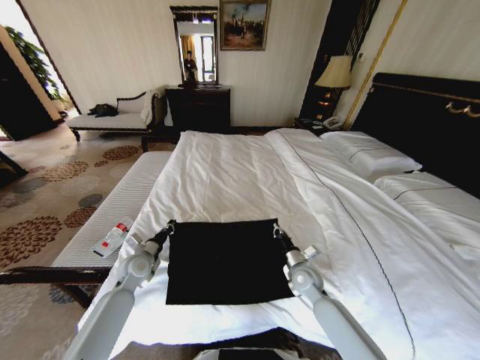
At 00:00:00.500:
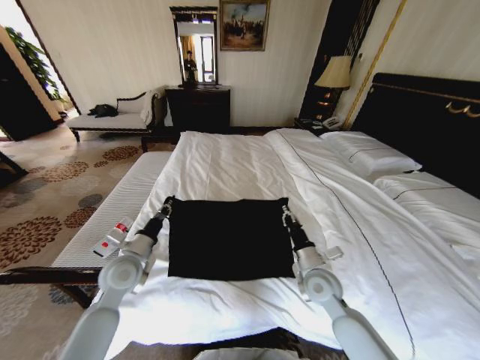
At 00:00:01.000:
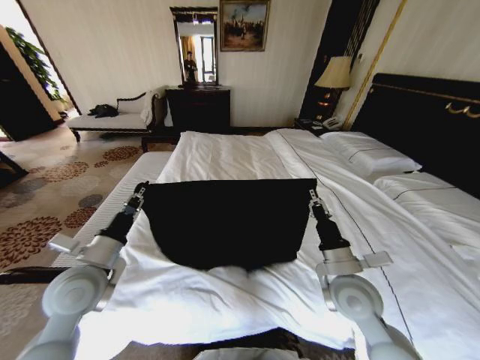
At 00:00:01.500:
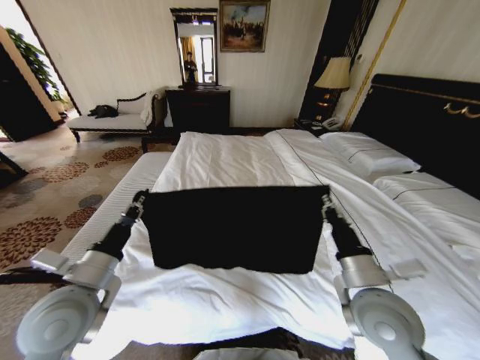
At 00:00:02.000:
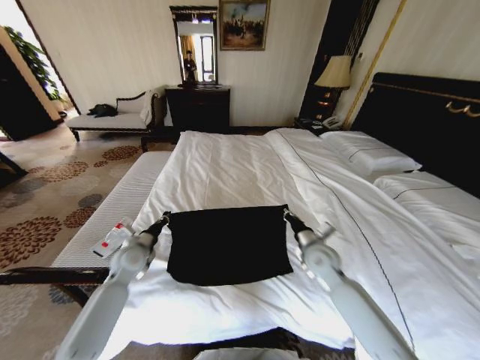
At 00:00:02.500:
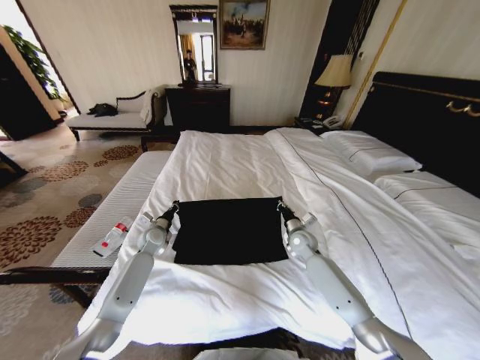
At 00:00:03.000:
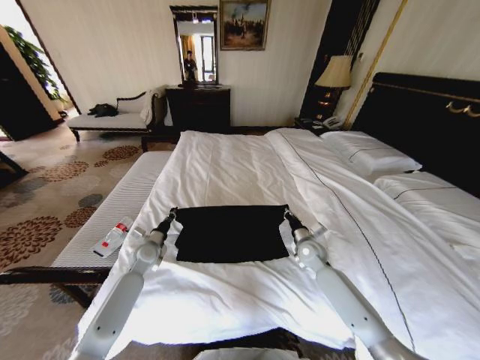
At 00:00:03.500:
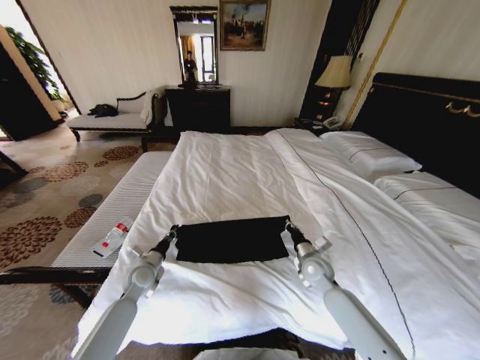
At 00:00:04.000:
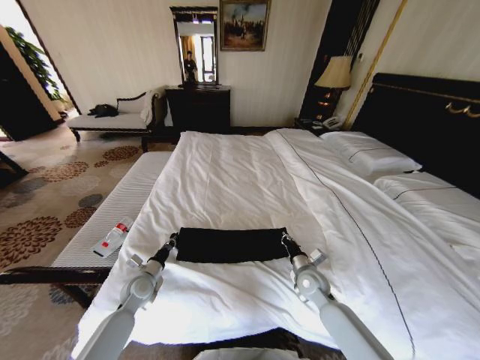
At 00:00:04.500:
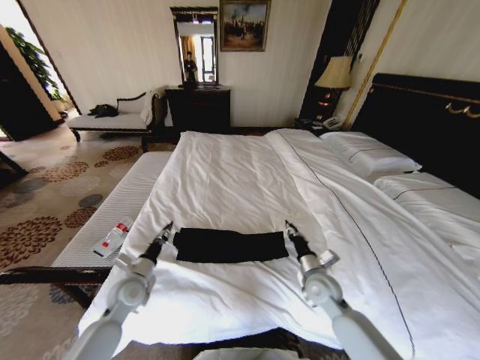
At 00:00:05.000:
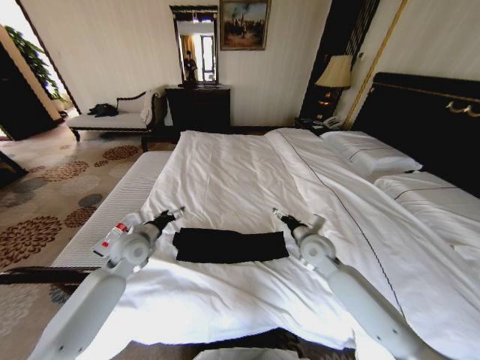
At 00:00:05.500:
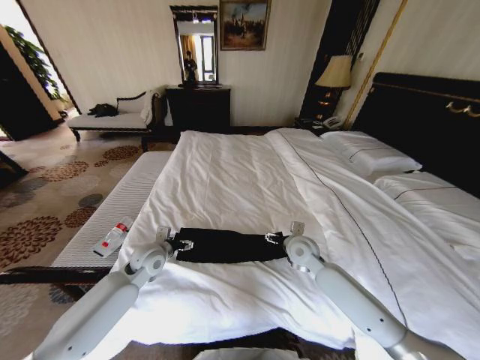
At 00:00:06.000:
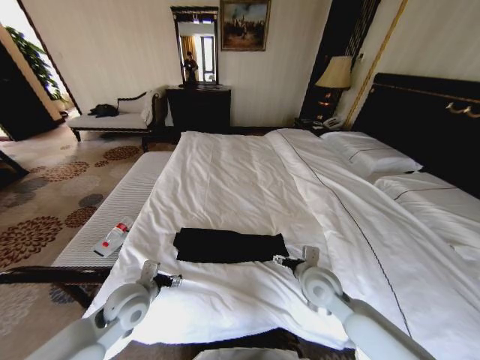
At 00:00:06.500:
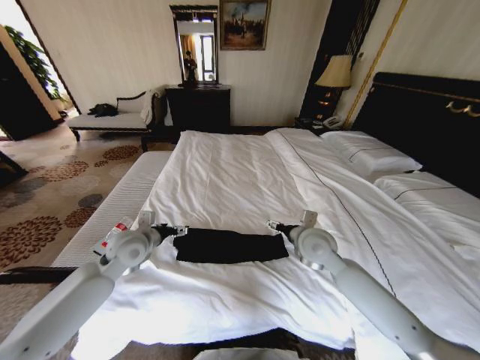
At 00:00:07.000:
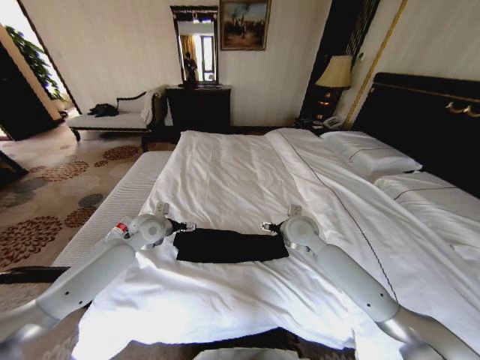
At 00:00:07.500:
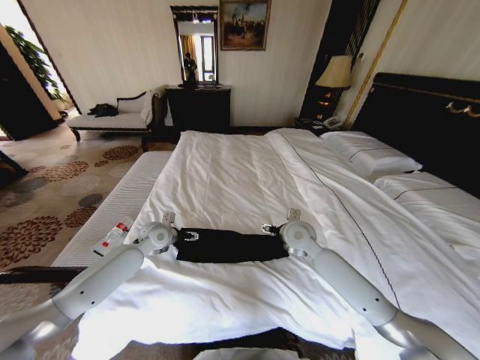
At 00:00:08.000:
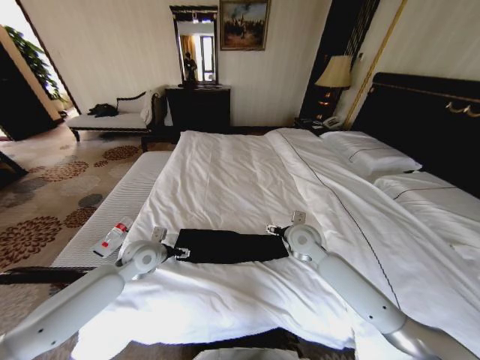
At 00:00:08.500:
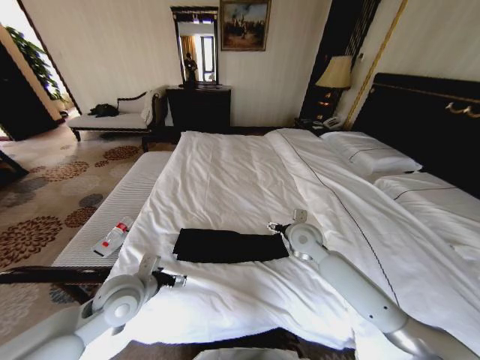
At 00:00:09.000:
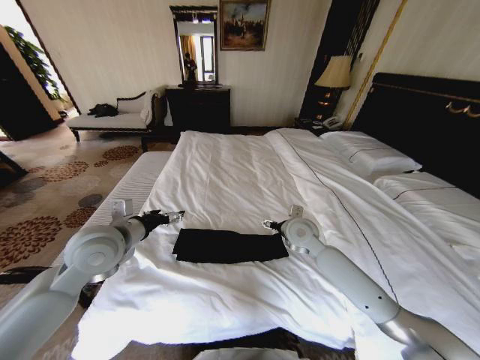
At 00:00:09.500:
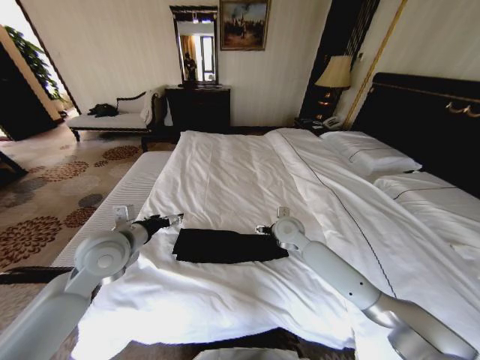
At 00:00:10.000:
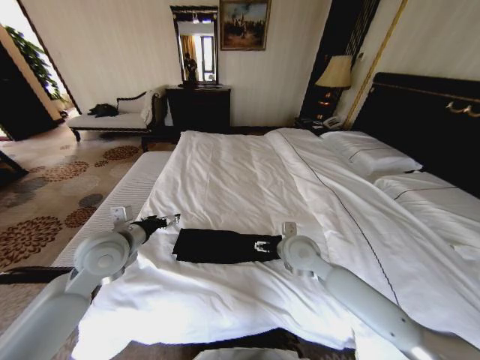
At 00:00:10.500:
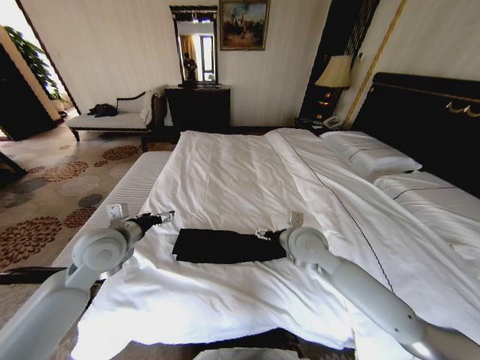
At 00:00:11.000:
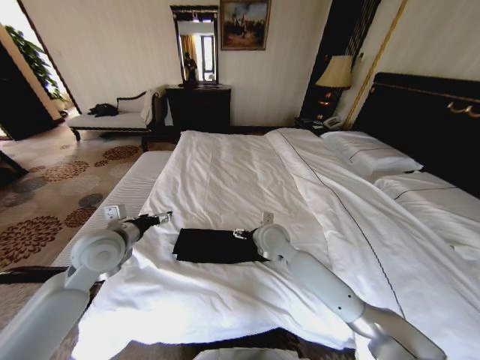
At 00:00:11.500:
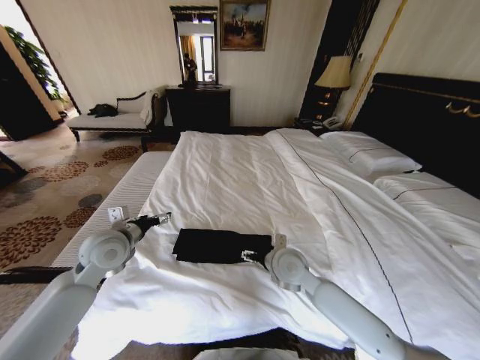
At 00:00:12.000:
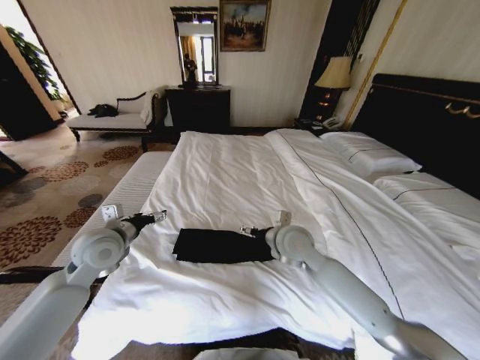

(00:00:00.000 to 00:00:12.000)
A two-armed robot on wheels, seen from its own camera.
Task of the whole recording: Fold the clothes on the bed.
00:00:00.000 - 00:00:02.000: The left gripper moves some 20 cm upward and comes back, while the right gripper travels upward by approximately 10 cm.
00:00:02.000 - 00:00:04.000: Both grippers move downward, approximately 10 cm. The right gripper moves roughly 10 cm forward and comes back. Meanwhile the left gripper goes forward and returns, some 10 cm each way.
00:00:04.000 - 00:00:06.000: The left gripper is displaced upward and backward by some 15 cm, and opens up. The right gripper goes some 10 cm upward, and opens up.
00:00:06.000 - 00:00:08.000: The two grippers go some 15 cm forward.
00:00:08.000 - 00:00:10.000: The left gripper heads upward and backward, covering roughly 15 cm; the right gripper shifts by some 5 cm.
00:00:10.000 - 00:00:12.000: The right gripper moves some 5 cm forward and comes back.

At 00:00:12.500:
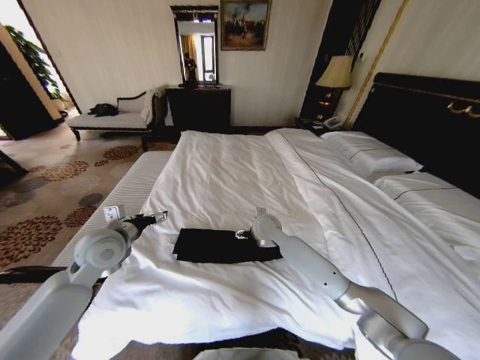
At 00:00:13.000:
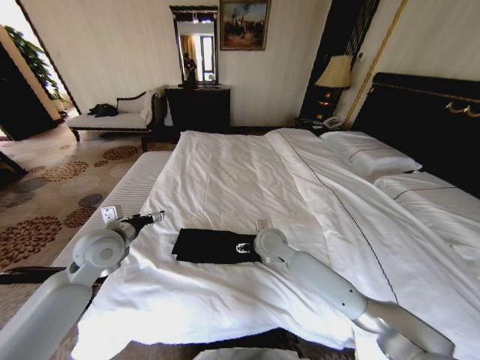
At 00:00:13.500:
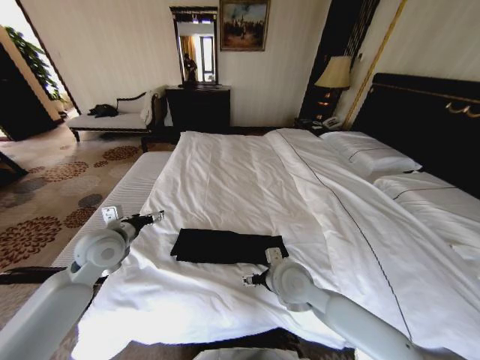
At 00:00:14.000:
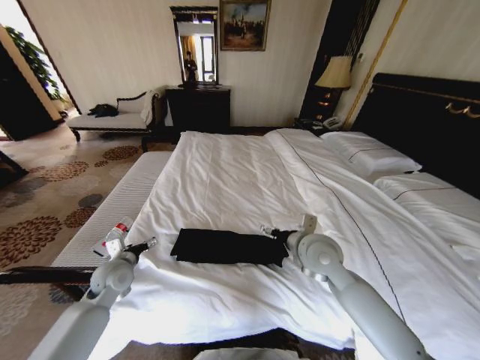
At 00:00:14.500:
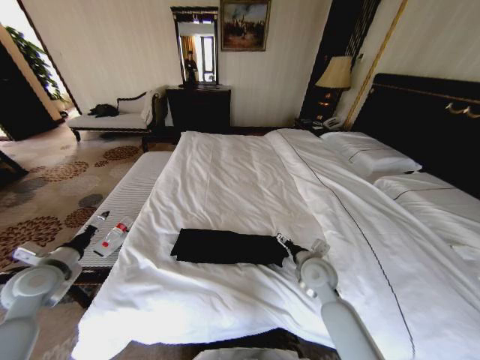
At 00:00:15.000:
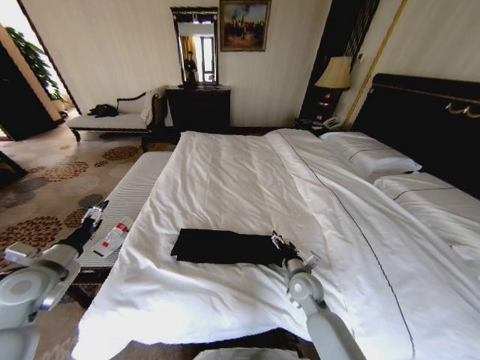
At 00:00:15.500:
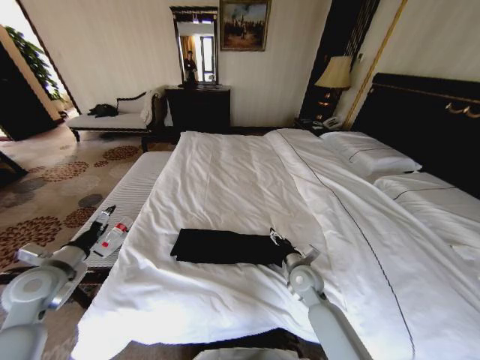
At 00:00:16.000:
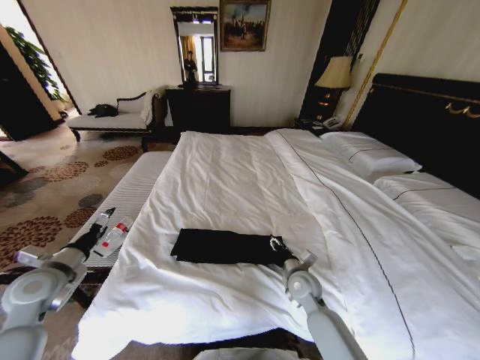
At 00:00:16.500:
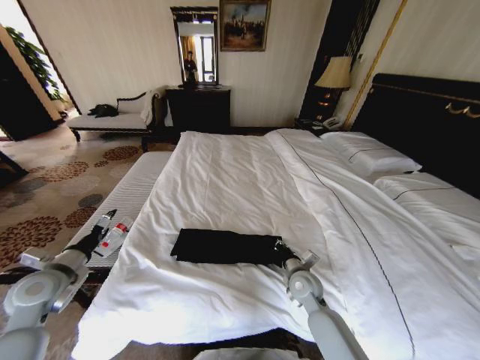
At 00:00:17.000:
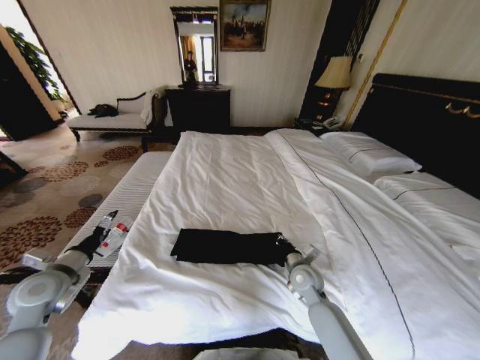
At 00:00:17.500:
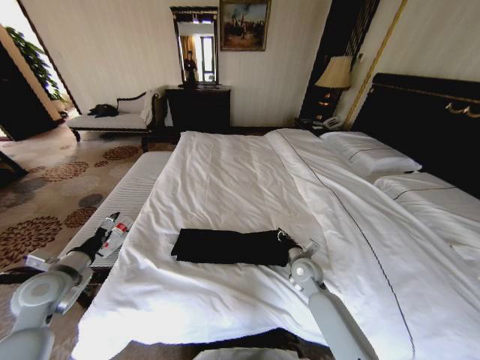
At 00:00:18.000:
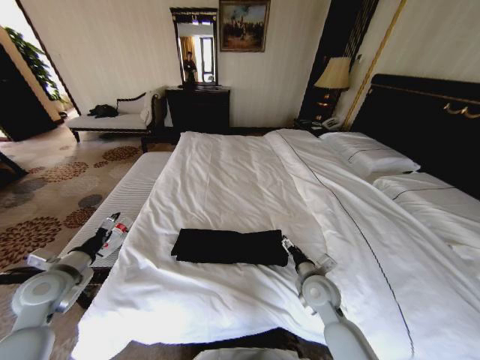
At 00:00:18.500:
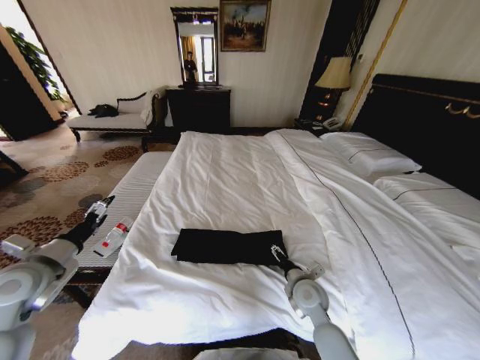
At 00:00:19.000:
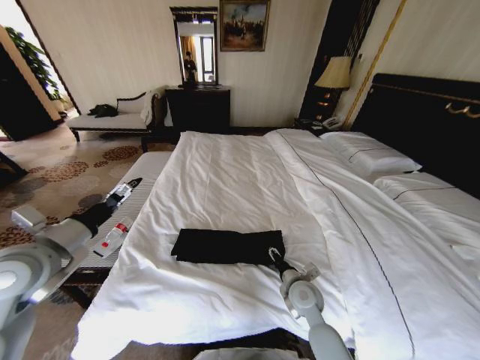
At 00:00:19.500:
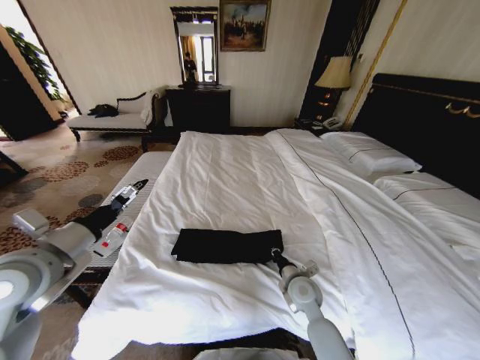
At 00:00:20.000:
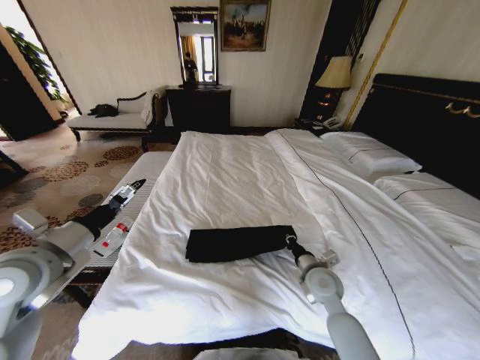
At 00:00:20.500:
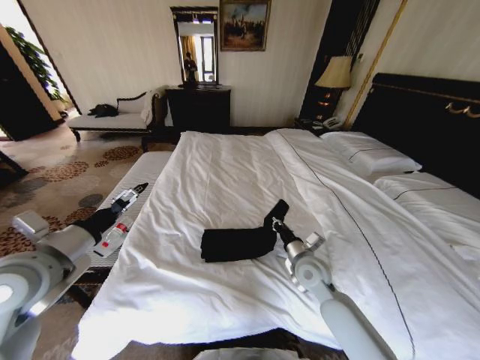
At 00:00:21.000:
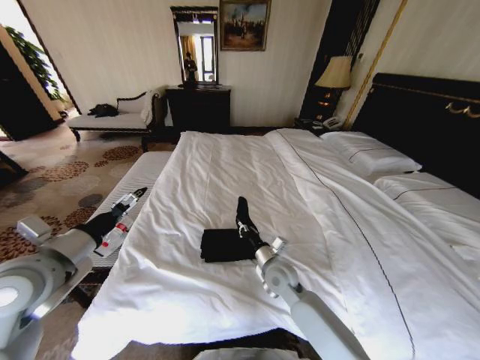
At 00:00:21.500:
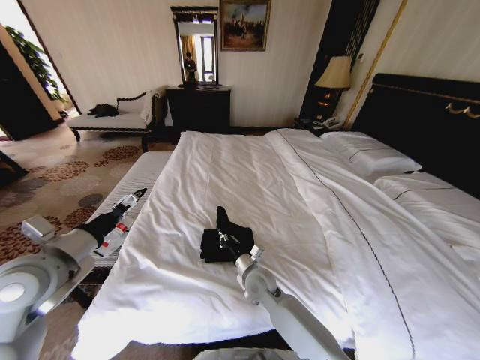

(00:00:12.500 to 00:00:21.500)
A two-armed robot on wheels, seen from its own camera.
Task of the whole recording: Fold the clothes on the bed.
00:00:12.500 - 00:00:14.500: The left gripper goes some 15 cm to the left and downward, while the right gripper moves backward and to the right, approximately 20 cm.
00:00:14.500 - 00:00:17.000: The right gripper shifts by some 5 cm, and closes its fingers.
00:00:17.000 - 00:00:19.500: The right gripper opens, then closes once more. Meanwhile the left gripper goes approximately 15 cm upward and to the right.
00:00:19.500 - 00:00:21.500: The right gripper moves to the left, some 15 cm.

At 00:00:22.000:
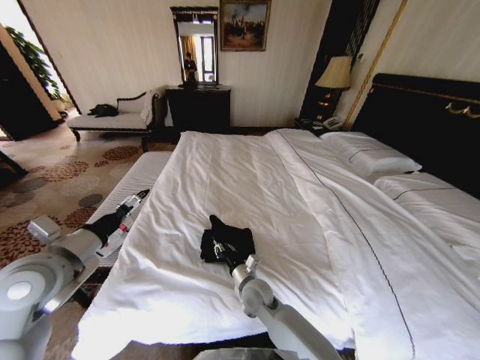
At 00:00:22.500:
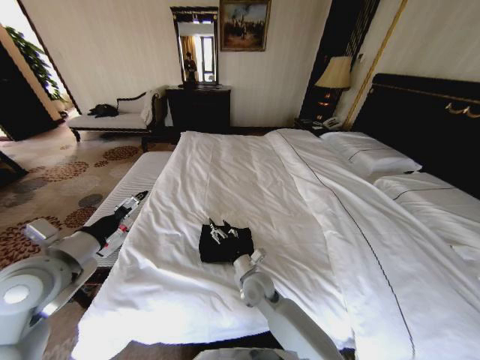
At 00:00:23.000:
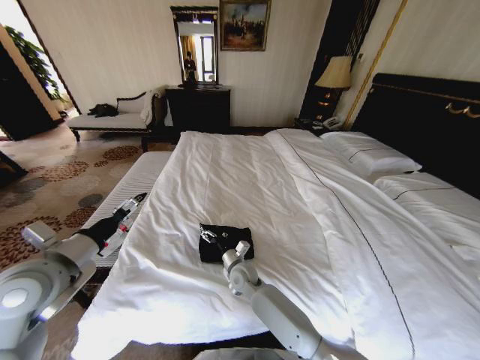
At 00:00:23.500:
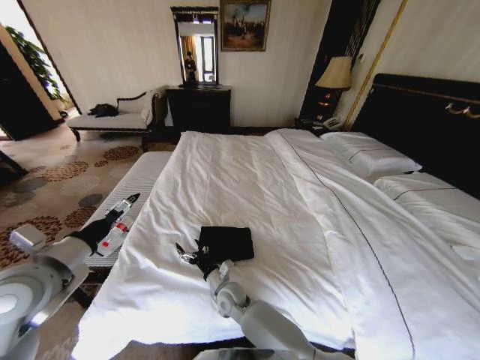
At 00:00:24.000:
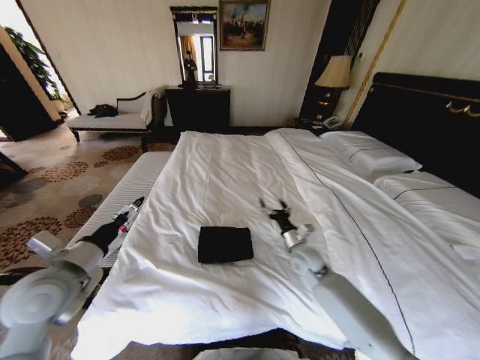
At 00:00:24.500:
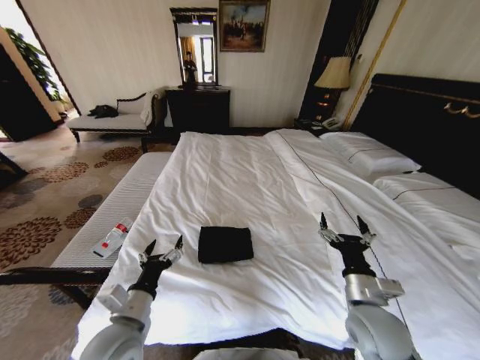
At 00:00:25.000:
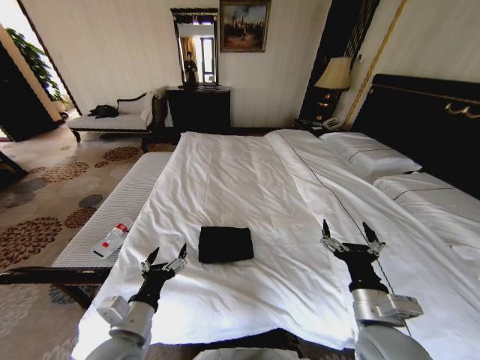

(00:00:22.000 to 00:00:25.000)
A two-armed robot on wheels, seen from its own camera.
Task of the whole recording: Fold the clothes on the bed.
00:00:22.000 - 00:00:23.500: The right gripper heads to the left, covering approximately 10 cm, and opens up.
00:00:23.500 - 00:00:25.000: The right gripper travels to the right, upward and backward by some 40 cm. Meanwhile the left gripper moves to the right, downward and backward, some 20 cm.
